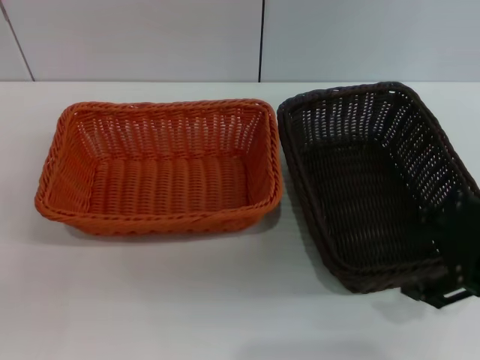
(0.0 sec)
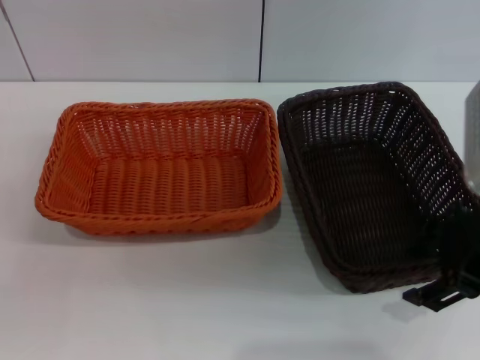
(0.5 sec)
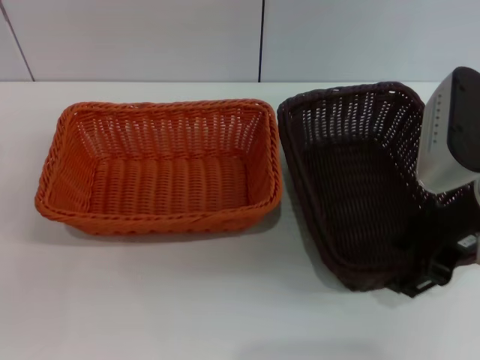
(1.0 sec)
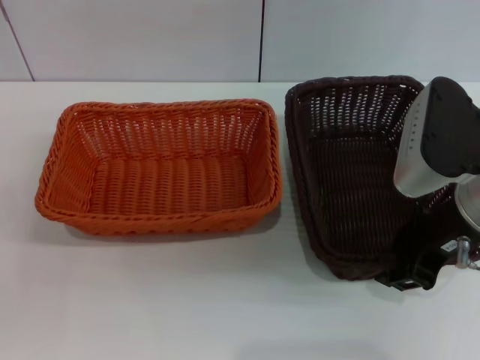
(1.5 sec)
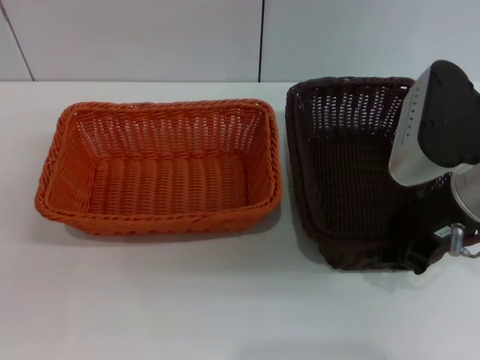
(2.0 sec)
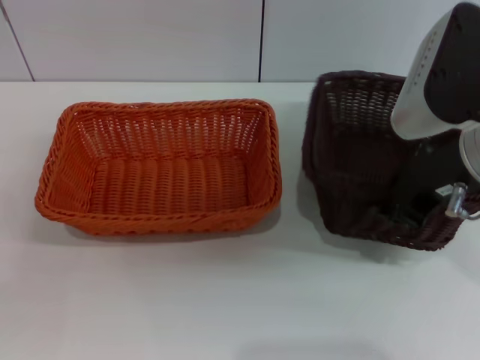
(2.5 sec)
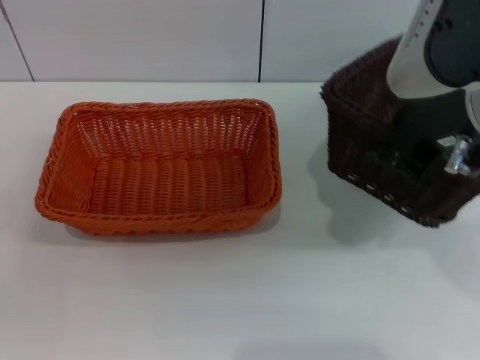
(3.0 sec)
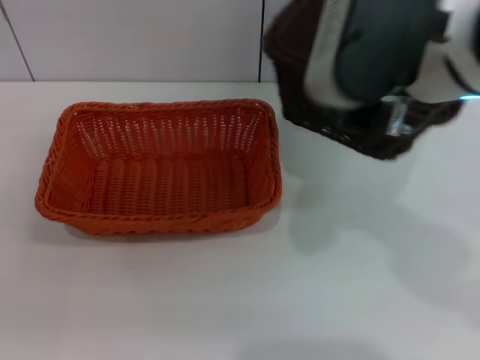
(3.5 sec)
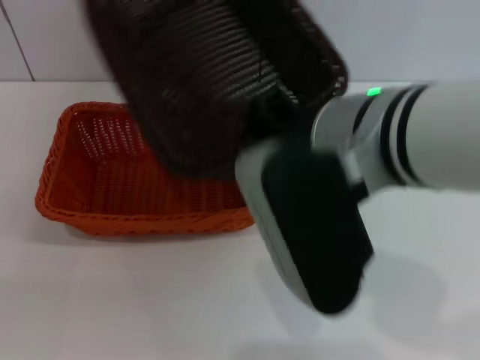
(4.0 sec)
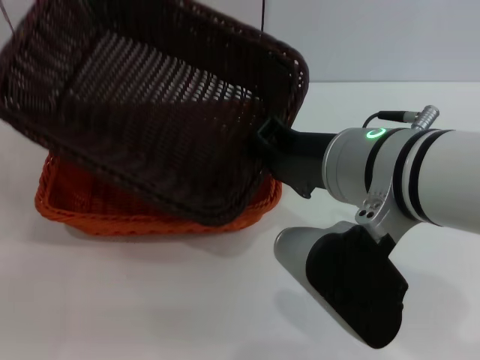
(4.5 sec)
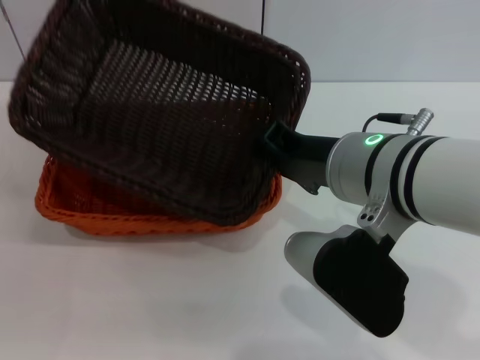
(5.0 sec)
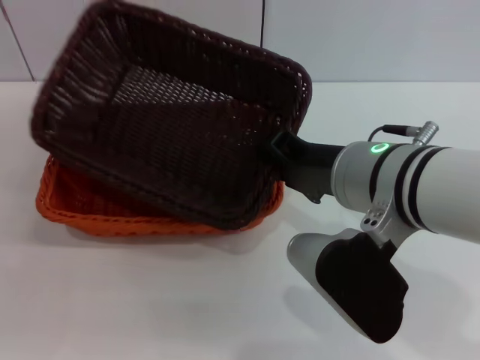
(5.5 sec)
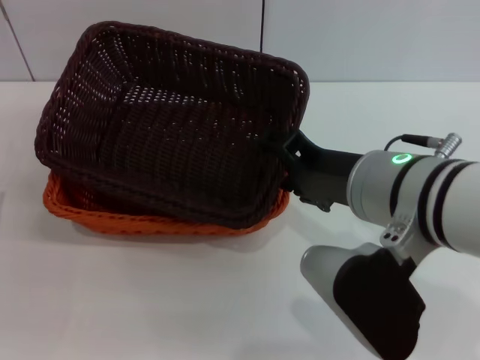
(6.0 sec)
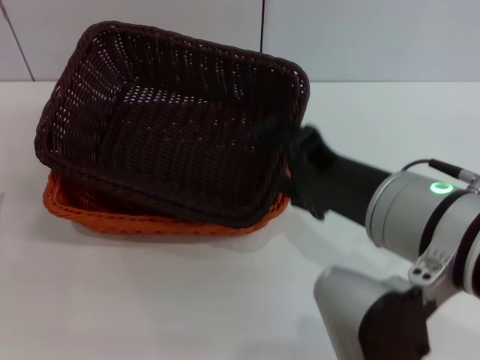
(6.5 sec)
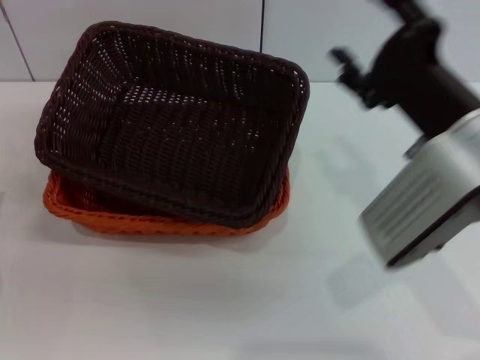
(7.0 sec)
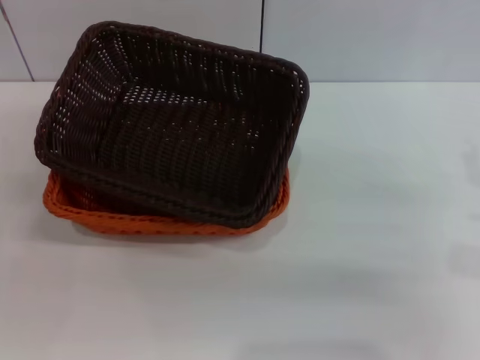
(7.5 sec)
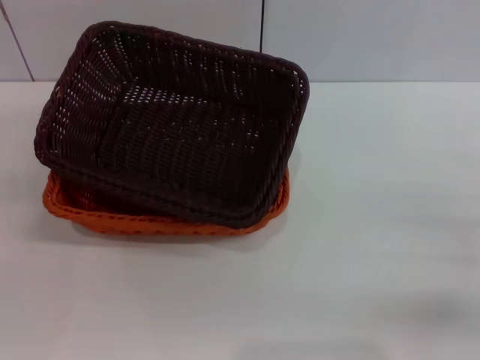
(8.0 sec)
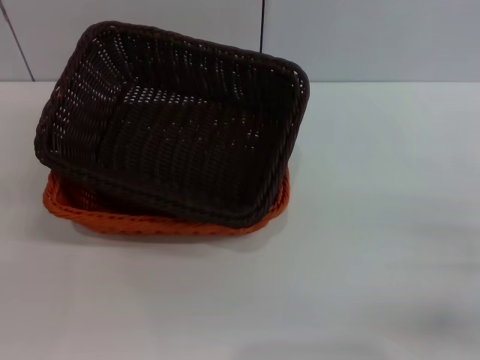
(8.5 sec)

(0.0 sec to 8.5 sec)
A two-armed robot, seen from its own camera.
Step, 0.0 sec - 2.5 sec: Pick up the dark basket with the right gripper.
Step, 3.0 sec - 5.5 sec: Place the dark basket on the light basket with the right gripper.
0.0 sec - 2.0 sec: The right gripper moves downward, about 5 cm, and closes its fingers.
2.0 sec - 4.0 sec: The right gripper is displaced to the left by about 10 cm.
4.0 sec - 6.5 sec: The right gripper shifts by some 10 cm, and opens its fingers.
6.5 sec - 8.5 sec: The right gripper moves to the right and downward, roughly 25 cm.
